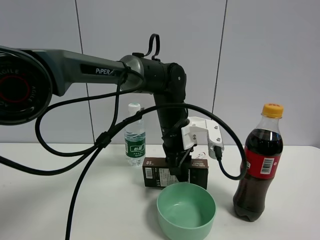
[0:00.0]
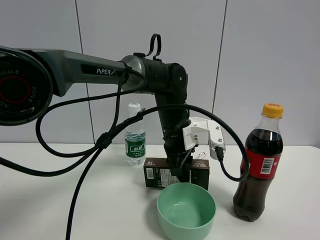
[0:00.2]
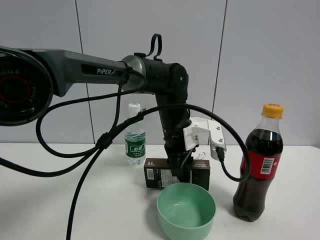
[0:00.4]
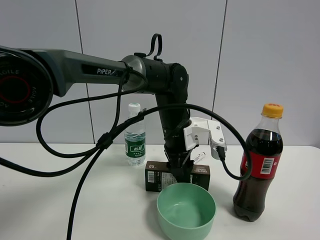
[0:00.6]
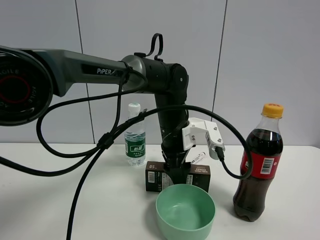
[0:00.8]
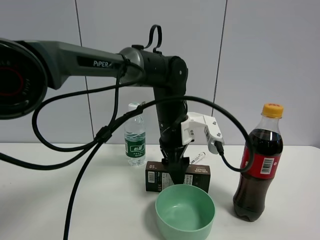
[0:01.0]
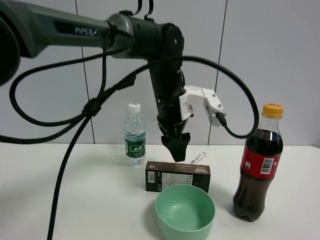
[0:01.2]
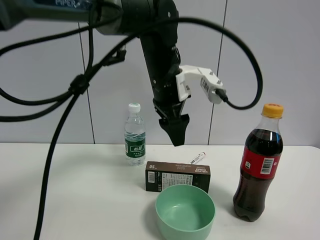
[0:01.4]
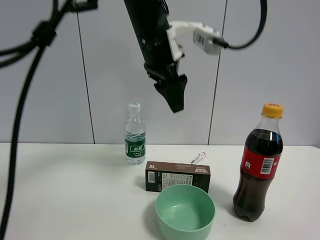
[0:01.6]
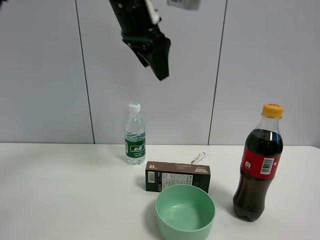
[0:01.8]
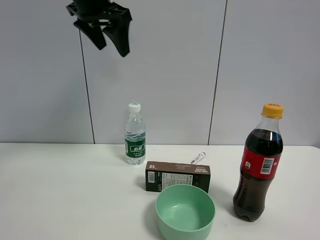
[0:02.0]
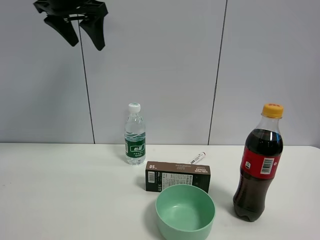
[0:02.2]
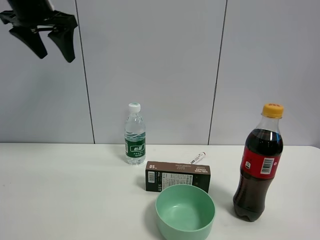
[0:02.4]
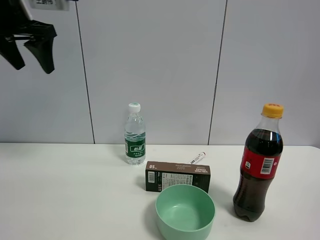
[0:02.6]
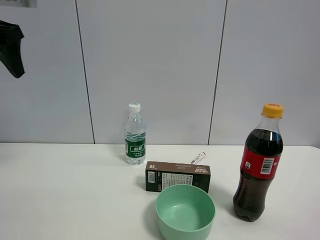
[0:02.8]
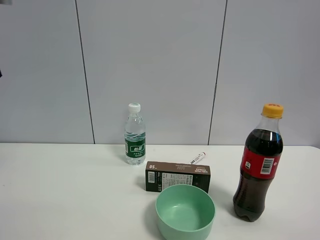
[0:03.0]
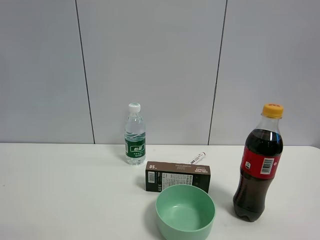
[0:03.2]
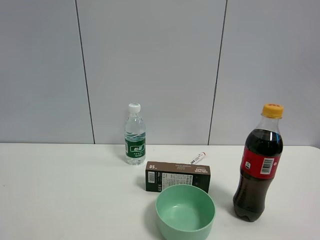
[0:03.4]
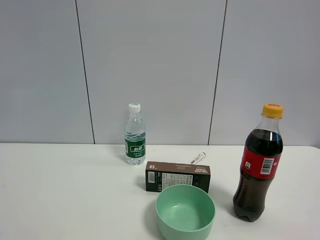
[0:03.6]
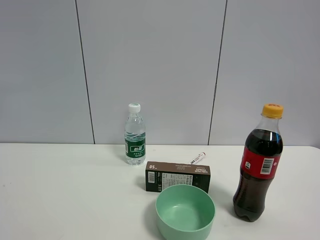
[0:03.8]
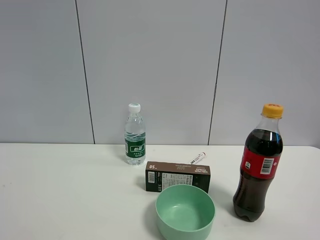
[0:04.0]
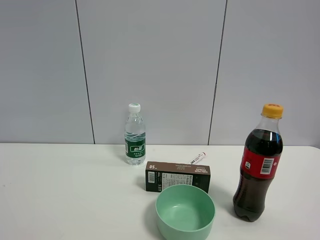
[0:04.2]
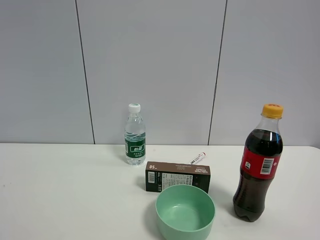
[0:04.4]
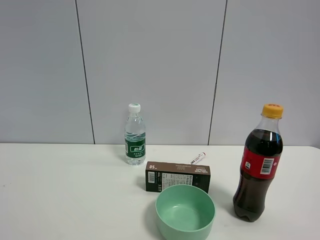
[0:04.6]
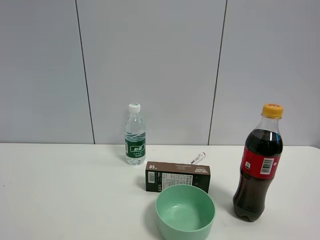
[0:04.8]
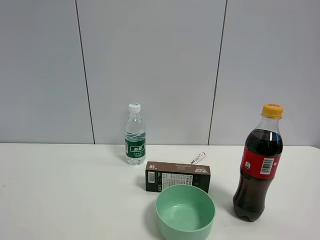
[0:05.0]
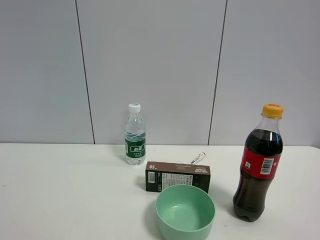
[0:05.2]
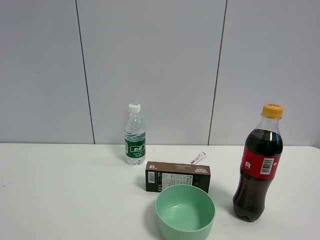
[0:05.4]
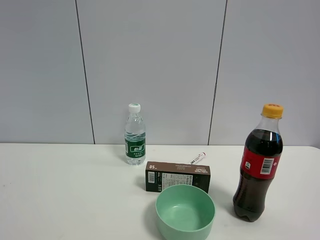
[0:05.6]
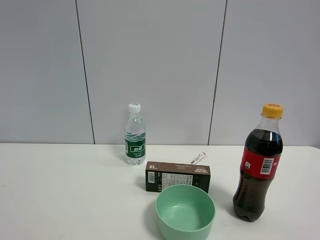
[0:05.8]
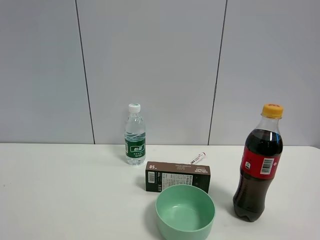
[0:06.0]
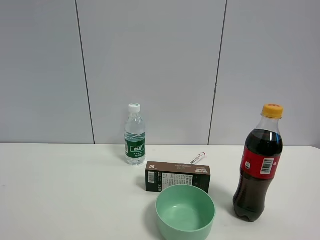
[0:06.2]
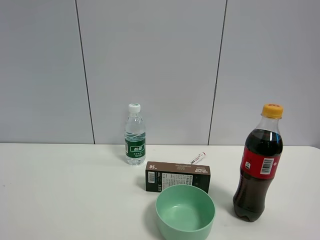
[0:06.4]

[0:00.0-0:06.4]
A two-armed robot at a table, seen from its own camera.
Task of the whole recording: the gripper move the object.
0:00.0 to 0:01.6: The left gripper travels upward by some 20 cm, and opens up.
0:01.6 to 0:03.2: The left gripper heads to the left and backward, covering some 35 cm.
0:04.8 to 0:06.4: Neither gripper changes place.

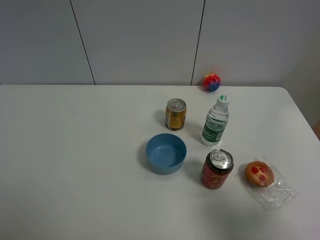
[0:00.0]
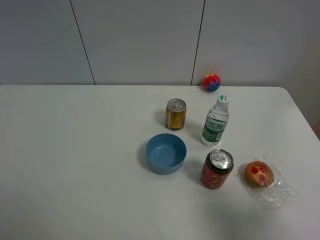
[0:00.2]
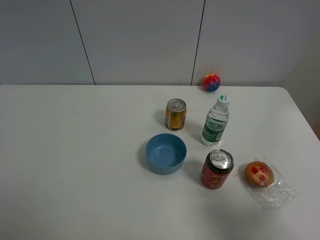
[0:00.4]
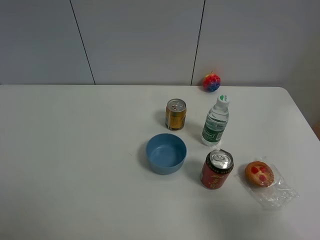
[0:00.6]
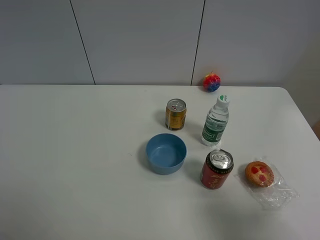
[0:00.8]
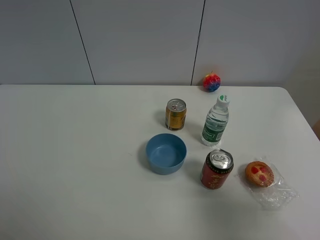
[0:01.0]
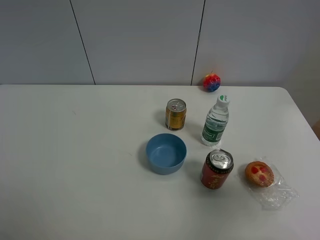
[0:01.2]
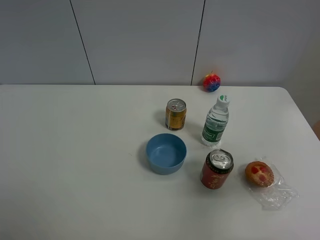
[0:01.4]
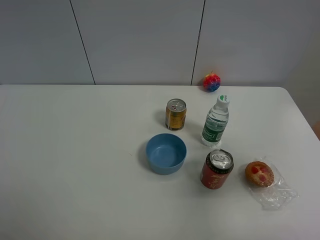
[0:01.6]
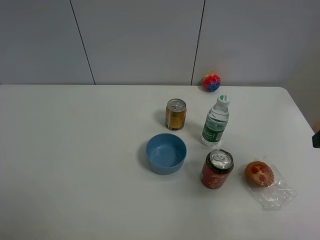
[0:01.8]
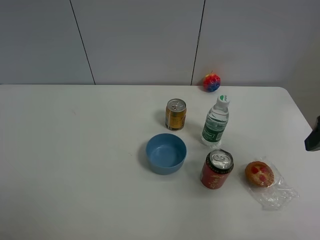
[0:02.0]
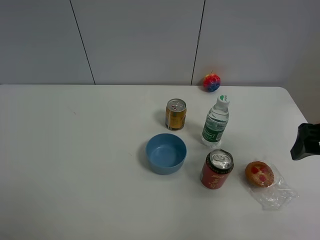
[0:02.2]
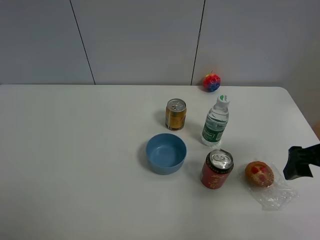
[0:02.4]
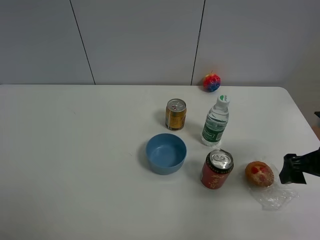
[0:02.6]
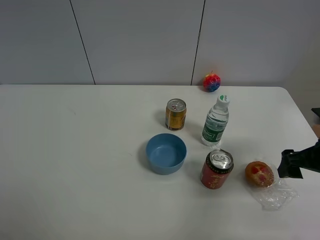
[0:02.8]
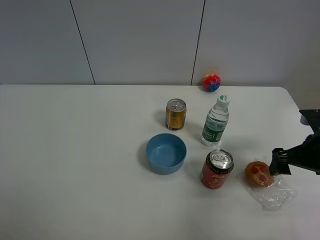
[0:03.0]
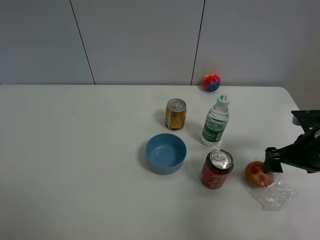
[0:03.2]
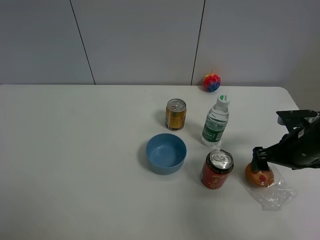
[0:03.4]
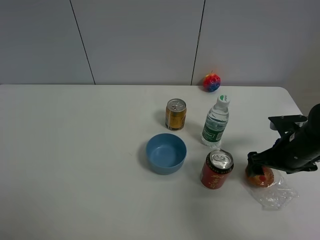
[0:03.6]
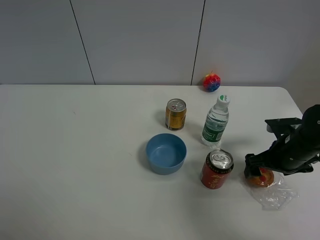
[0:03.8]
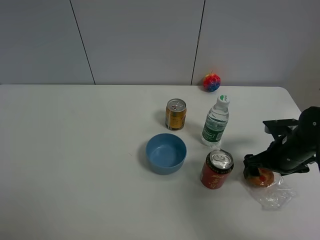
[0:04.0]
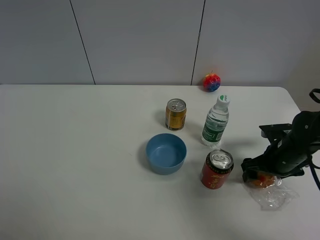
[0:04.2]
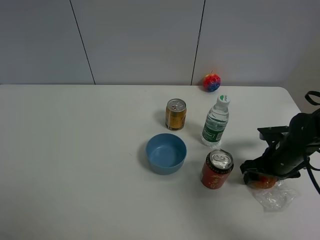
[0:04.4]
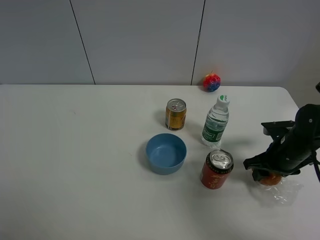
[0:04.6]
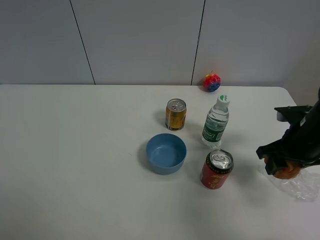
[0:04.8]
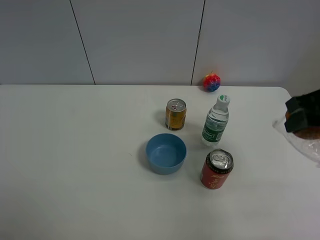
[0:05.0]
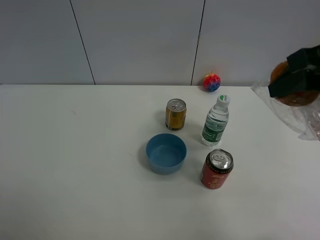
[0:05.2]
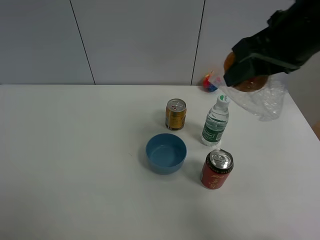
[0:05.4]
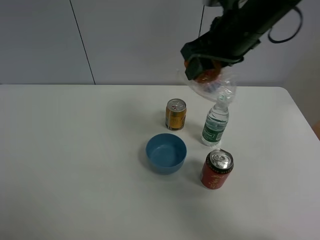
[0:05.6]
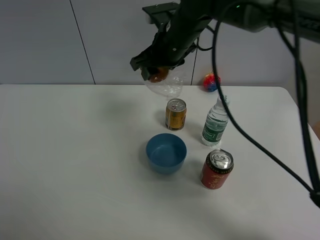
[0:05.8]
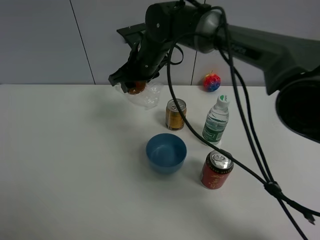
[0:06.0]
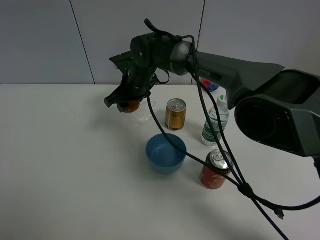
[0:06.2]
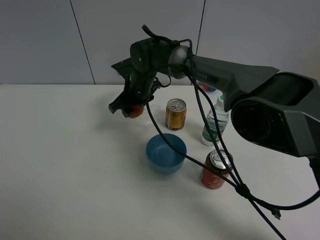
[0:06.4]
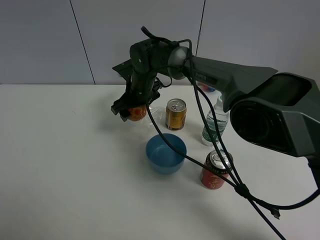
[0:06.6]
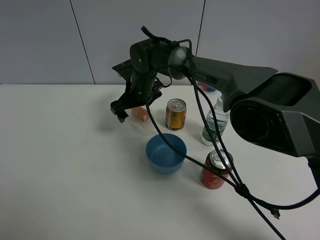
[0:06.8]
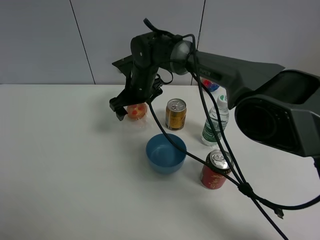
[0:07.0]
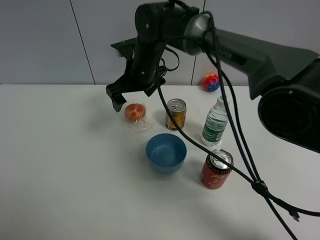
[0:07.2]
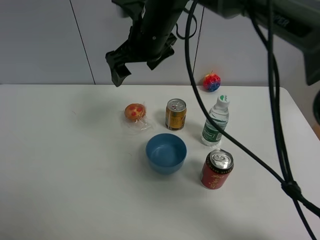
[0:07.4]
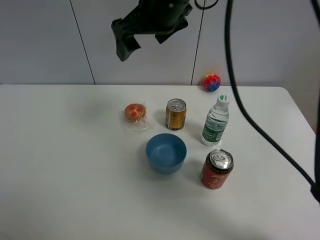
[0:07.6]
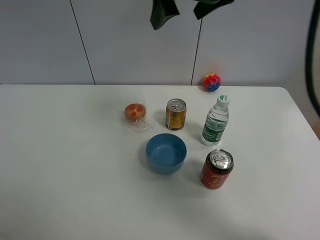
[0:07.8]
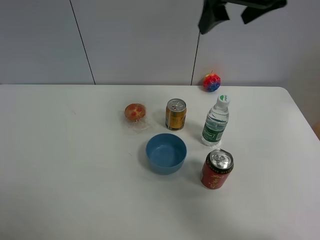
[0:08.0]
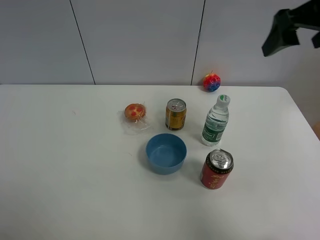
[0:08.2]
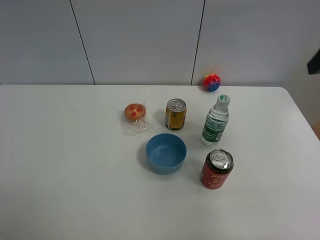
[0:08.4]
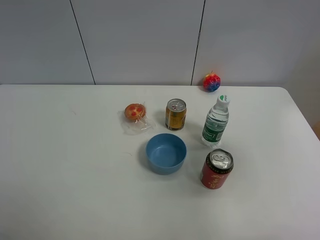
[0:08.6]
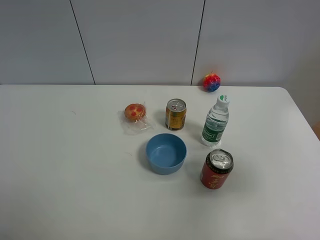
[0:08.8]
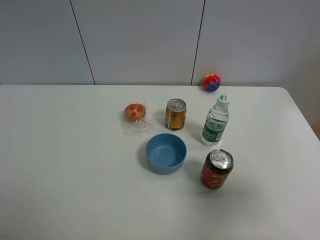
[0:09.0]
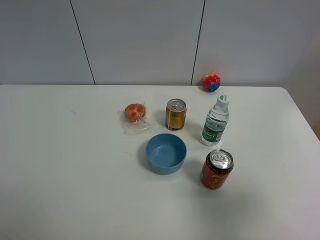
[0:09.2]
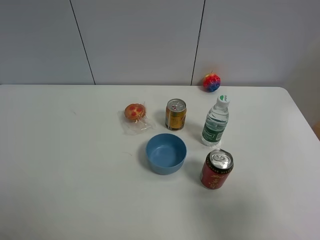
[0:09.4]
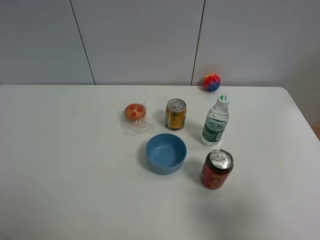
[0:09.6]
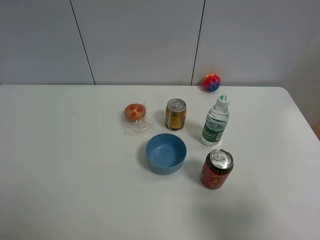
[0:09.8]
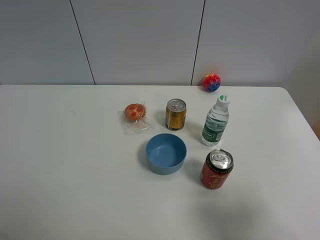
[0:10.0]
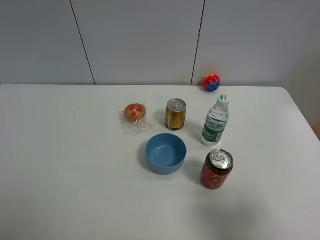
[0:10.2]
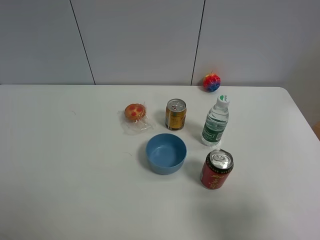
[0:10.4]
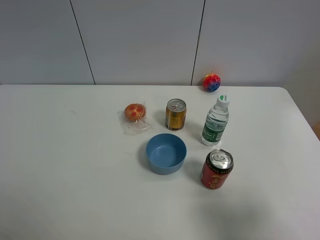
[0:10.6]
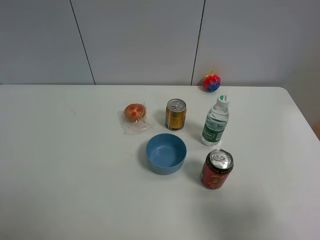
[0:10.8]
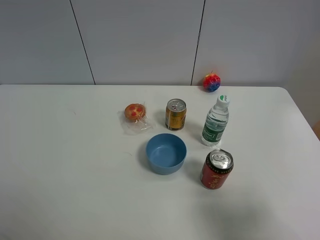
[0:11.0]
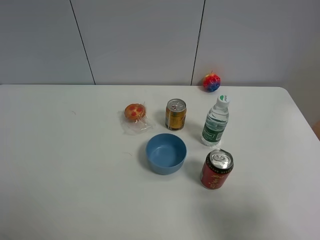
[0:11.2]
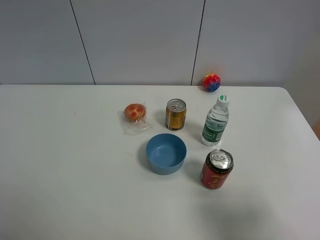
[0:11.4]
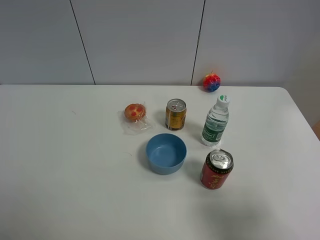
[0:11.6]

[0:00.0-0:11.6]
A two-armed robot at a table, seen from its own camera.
Task of the whole recording: the gripper move the object.
Step, 0:00.0 to 0:04.4: Grasp the egg tart with the right gripper.
Step, 0:04.6 to 0:07.0: Place the egg tart on the table with the right gripper.
0:00.0 to 0:01.4: The right gripper is displaced forward and upward by about 10 cm.
0:01.4 to 0:02.8: The right gripper heads downward and forward, covering approximately 15 cm.
0:02.8 to 0:04.4: The right gripper shifts about 10 cm downward and forward, and closes.
0:04.4 to 0:05.8: The right gripper shifts roughly 35 cm to the left, upward and forward, and closes its fingers.
0:05.8 to 0:07.2: The right gripper goes downward and returns, some 10 cm each way, and opens up.
0:07.2 to 0:08.8: The right gripper travels to the right and backward by approximately 40 cm.
0:08.8 to 0:10.2: The right gripper moves downward and backward, about 10 cm.
0:10.2 to 0:11.6: Both grippers stay about where they are.

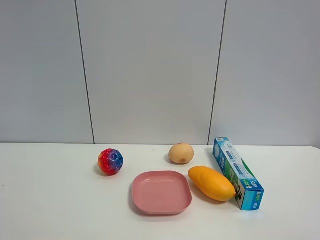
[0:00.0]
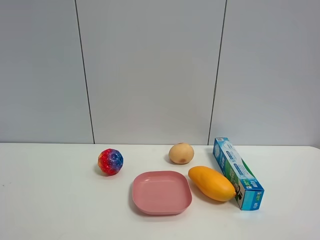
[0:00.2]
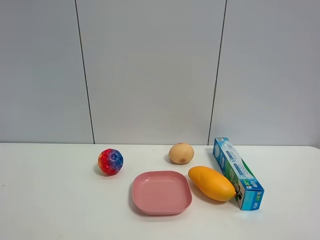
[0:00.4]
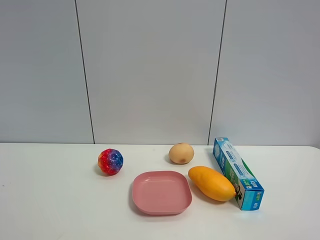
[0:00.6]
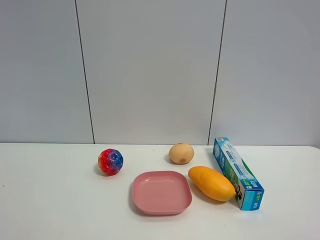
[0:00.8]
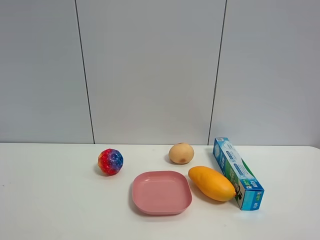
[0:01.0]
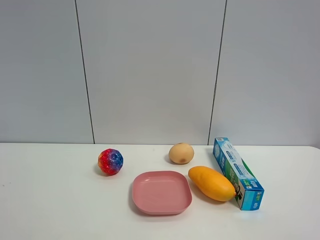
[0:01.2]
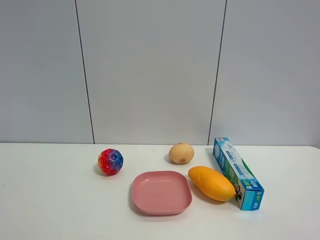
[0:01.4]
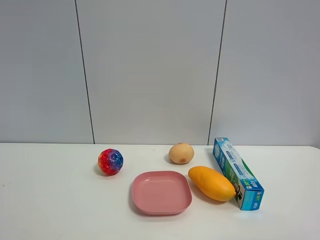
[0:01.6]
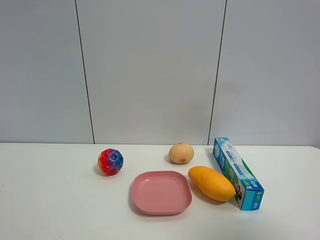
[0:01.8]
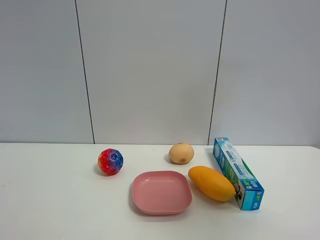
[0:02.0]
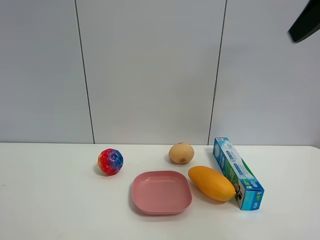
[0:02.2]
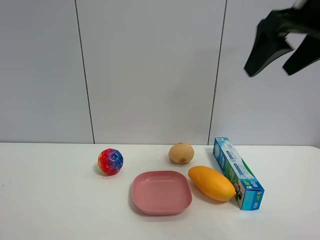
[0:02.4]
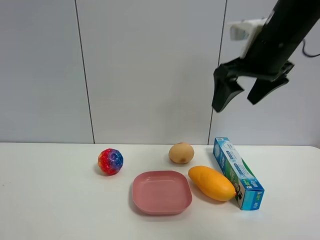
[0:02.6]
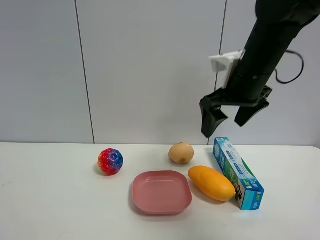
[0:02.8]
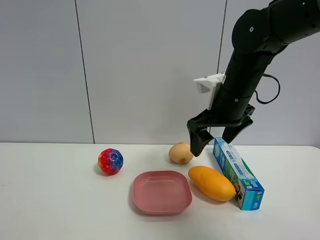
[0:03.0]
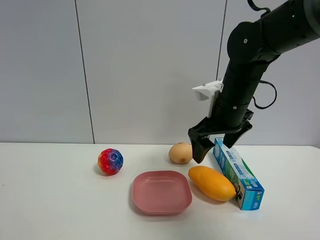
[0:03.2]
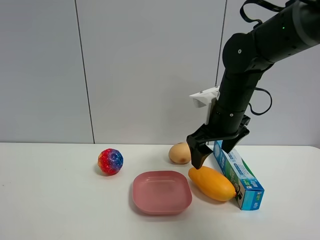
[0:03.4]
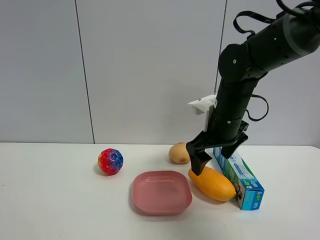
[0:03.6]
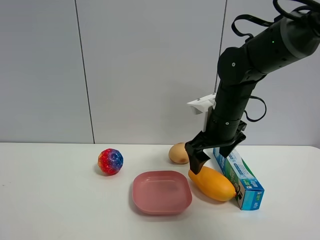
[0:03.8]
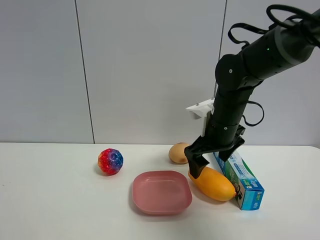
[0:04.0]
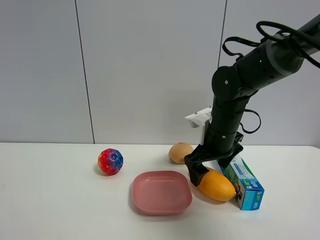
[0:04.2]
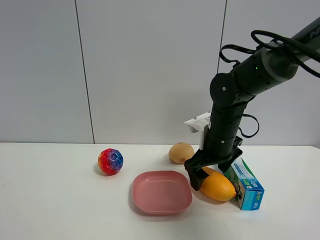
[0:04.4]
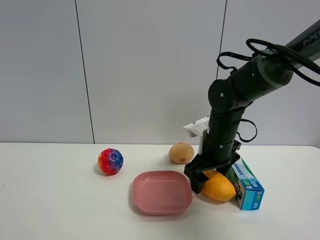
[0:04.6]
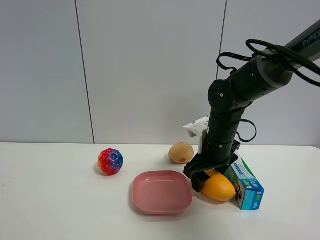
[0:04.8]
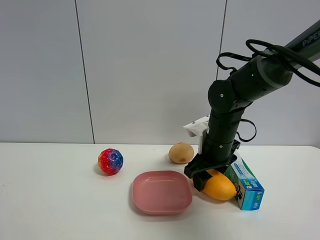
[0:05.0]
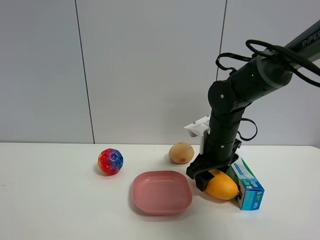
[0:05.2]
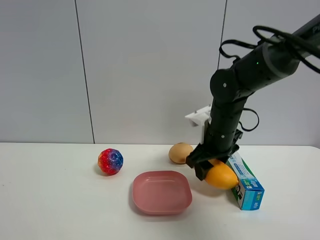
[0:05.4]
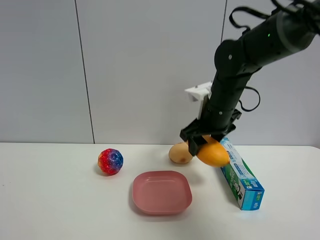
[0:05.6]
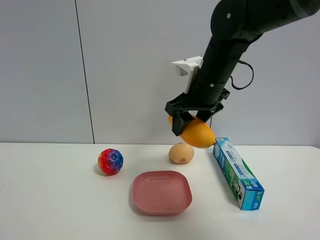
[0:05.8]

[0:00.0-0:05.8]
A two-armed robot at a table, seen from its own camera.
Task of the whole recording: the gripper move the object.
Step, 0:00.0 to 0:04.8: Grasp the mango with the right gripper.
0:01.4 to 0:02.8: The right gripper is displaced forward and to the left by roughly 35 cm, and opens up.
0:02.8 to 0:04.4: The right gripper moves downward, approximately 15 cm.
0:04.4 to 0:05.8: The right gripper shifts approximately 10 cm upward, and closes its fingers.
